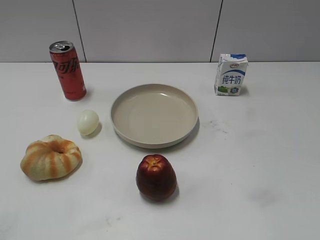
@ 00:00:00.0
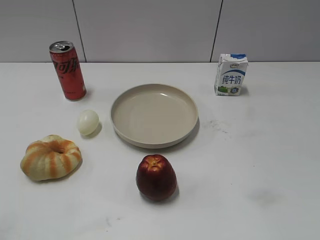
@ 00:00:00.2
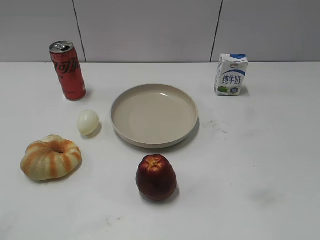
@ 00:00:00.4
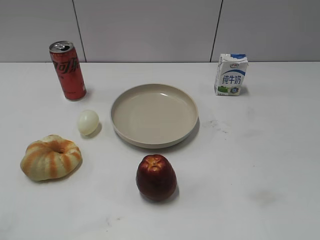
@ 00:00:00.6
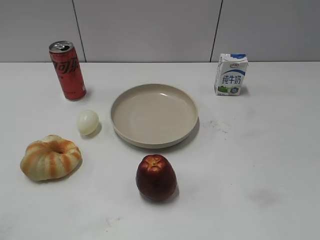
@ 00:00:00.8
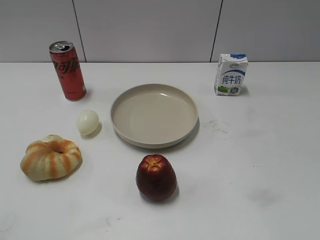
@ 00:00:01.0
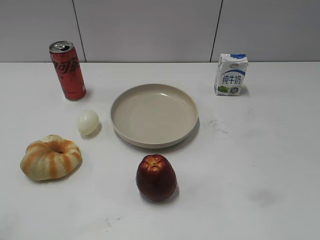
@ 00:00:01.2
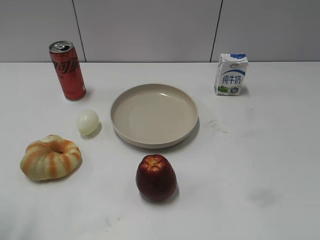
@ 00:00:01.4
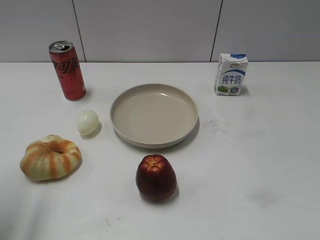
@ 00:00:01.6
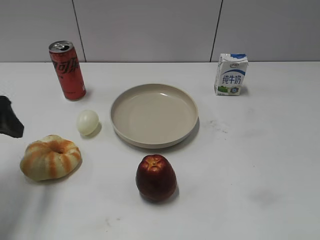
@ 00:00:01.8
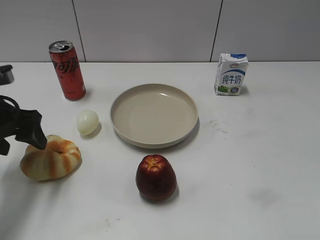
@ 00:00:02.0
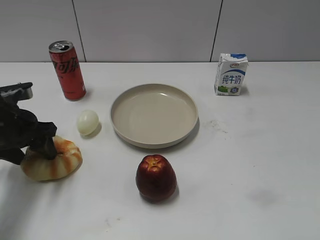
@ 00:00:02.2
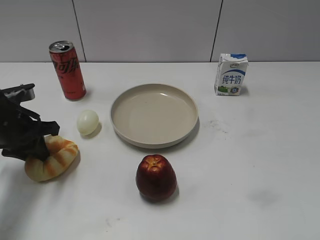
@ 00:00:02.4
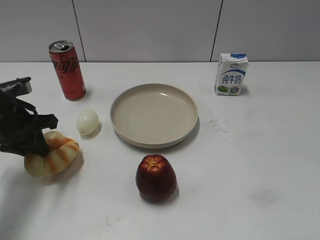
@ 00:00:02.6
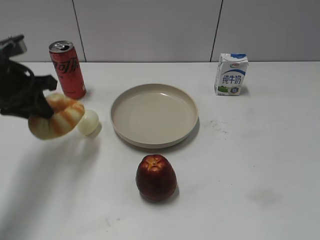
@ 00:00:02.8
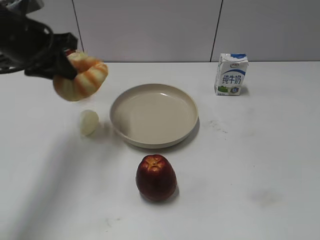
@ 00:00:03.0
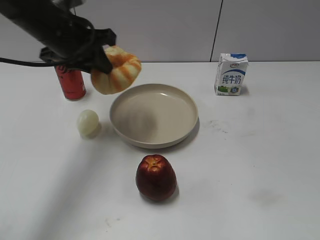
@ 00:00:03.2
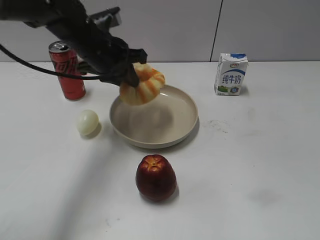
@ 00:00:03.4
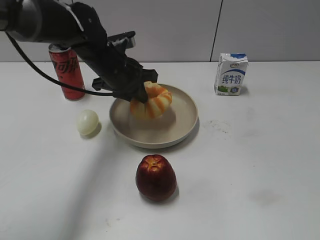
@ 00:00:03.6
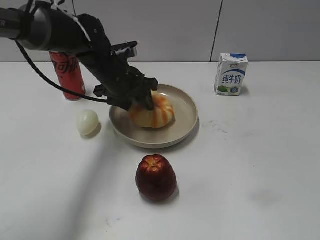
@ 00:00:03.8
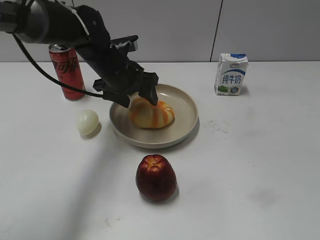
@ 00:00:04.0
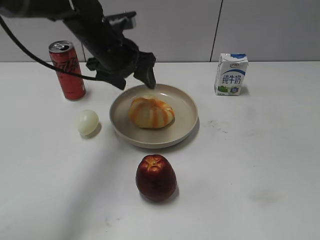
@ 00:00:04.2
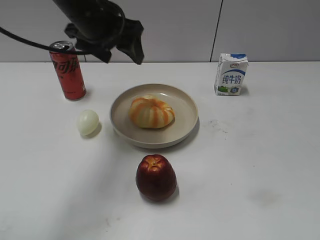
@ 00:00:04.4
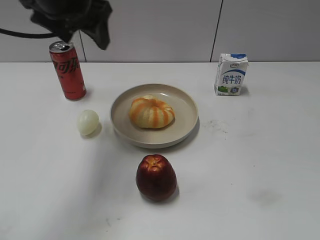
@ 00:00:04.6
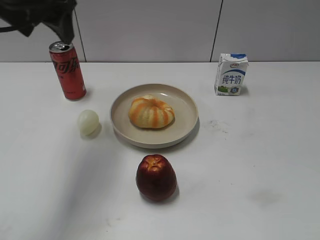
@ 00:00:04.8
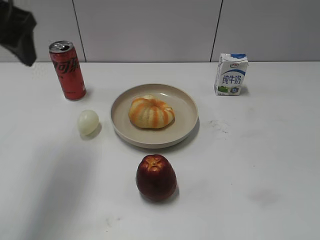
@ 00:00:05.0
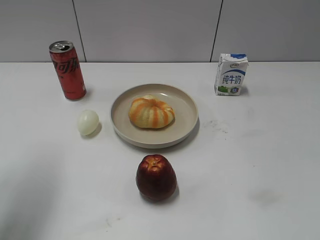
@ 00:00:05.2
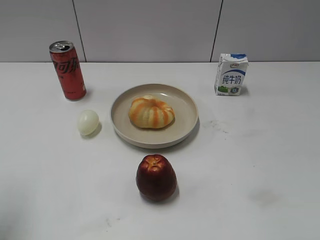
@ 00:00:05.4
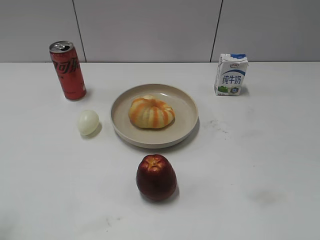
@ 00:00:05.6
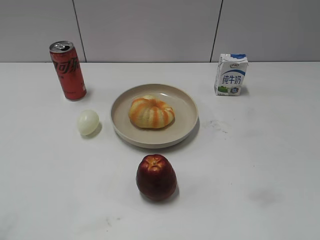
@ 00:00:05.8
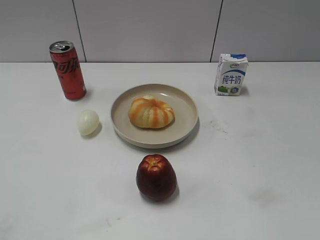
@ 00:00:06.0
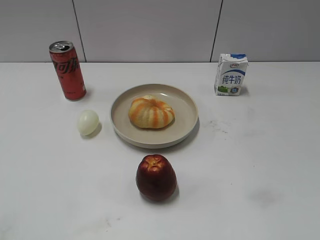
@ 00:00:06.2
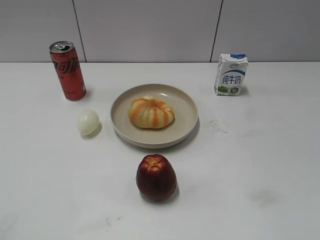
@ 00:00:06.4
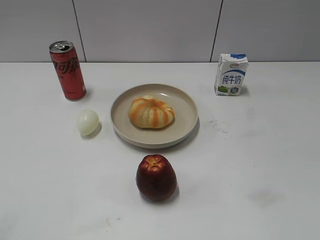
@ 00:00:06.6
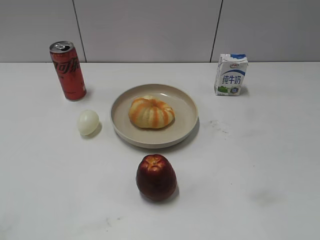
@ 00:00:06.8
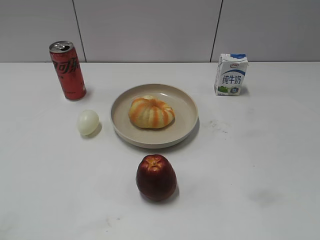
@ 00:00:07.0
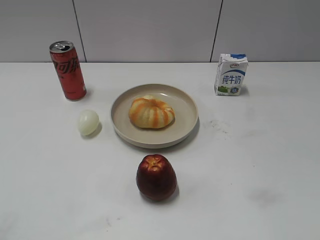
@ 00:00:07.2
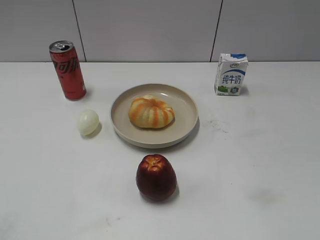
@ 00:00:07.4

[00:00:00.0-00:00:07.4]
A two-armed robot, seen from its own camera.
Step, 00:00:01.0 to 00:00:02.4: Grasp the round bread with left gripper.
Step, 00:00:02.6 to 00:00:04.2: Place the round bread on the plate with left gripper.
00:00:01.4 to 00:00:03.0: The left gripper goes some 20 cm forward and to the right, and closes its fingers.
00:00:03.0 to 00:00:04.4: The left gripper is displaced upward by some 10 cm, and opens its fingers.
00:00:04.4 to 00:00:06.0: The left gripper is displaced backward and to the left by some 35 cm.

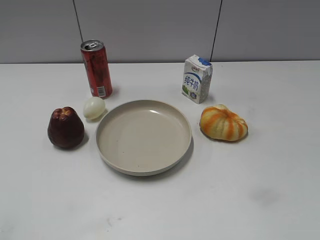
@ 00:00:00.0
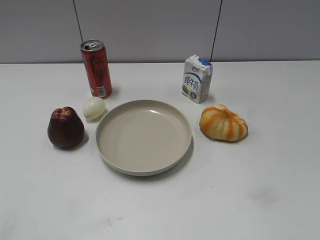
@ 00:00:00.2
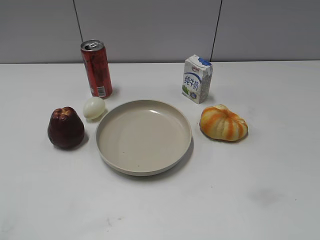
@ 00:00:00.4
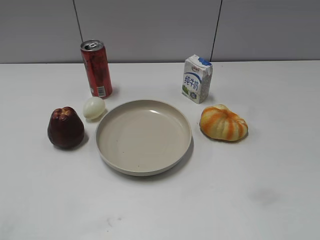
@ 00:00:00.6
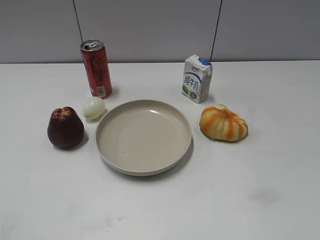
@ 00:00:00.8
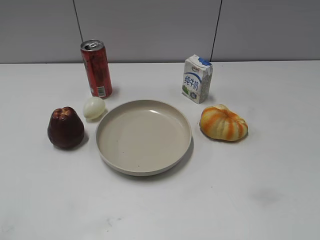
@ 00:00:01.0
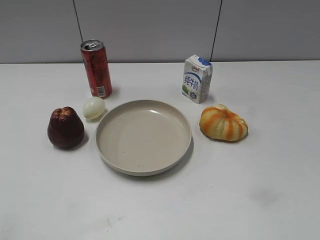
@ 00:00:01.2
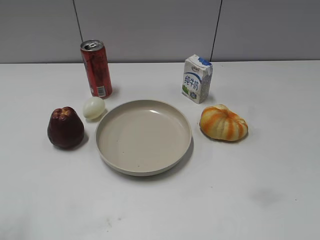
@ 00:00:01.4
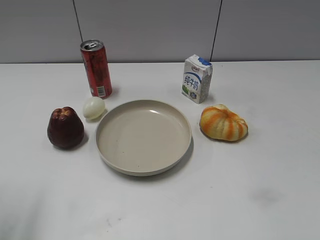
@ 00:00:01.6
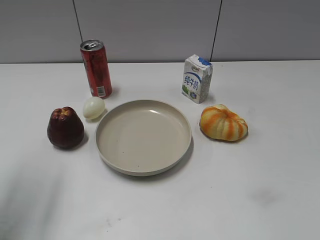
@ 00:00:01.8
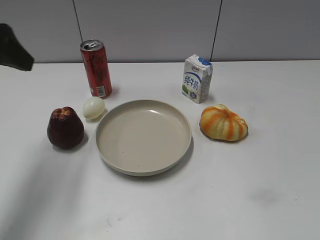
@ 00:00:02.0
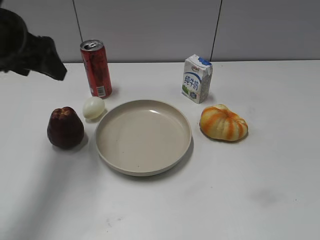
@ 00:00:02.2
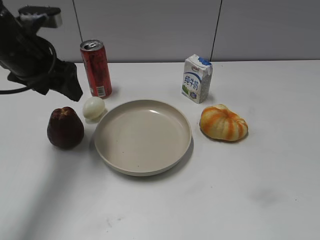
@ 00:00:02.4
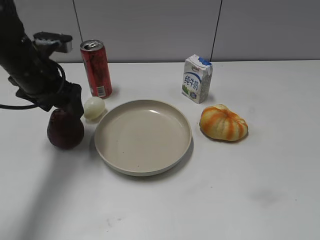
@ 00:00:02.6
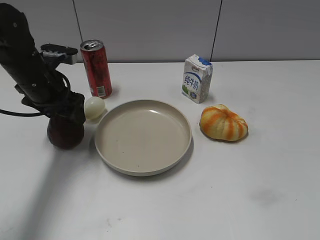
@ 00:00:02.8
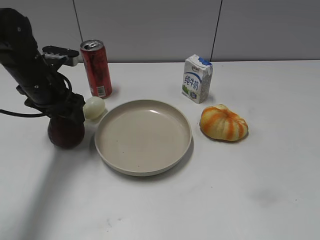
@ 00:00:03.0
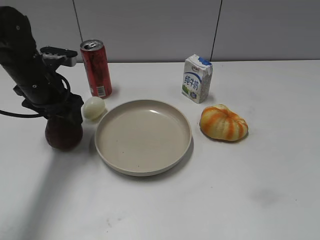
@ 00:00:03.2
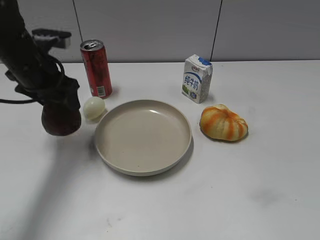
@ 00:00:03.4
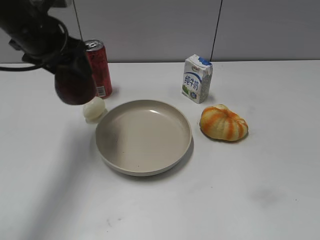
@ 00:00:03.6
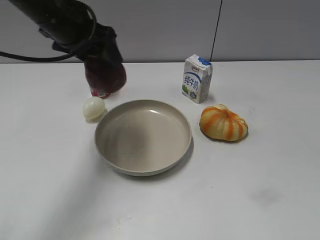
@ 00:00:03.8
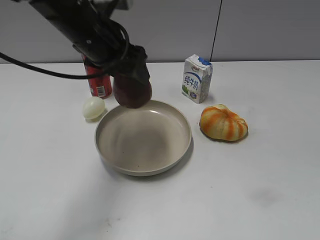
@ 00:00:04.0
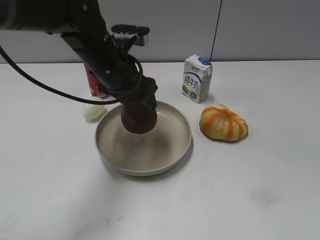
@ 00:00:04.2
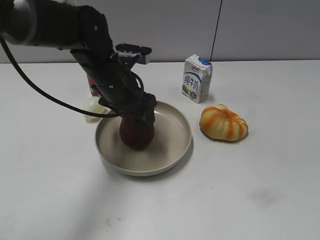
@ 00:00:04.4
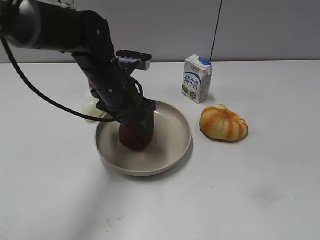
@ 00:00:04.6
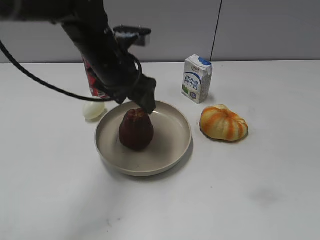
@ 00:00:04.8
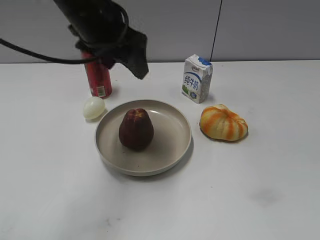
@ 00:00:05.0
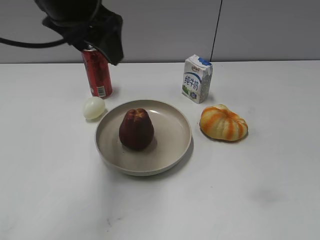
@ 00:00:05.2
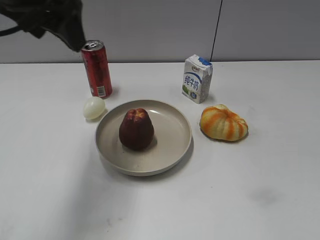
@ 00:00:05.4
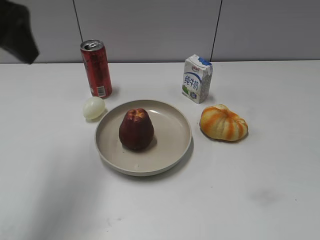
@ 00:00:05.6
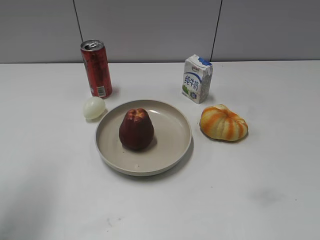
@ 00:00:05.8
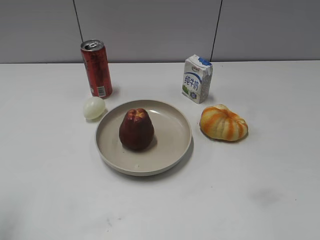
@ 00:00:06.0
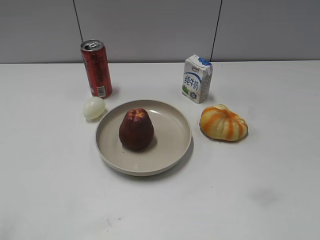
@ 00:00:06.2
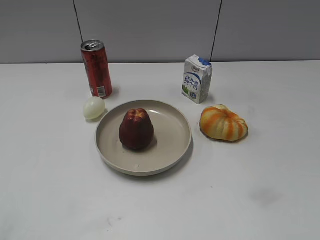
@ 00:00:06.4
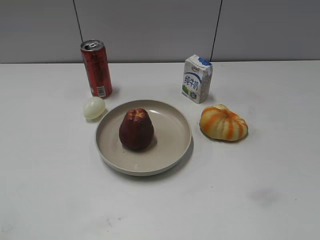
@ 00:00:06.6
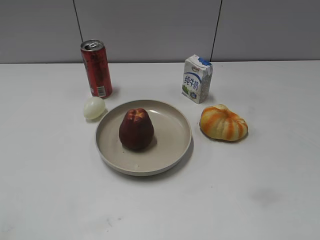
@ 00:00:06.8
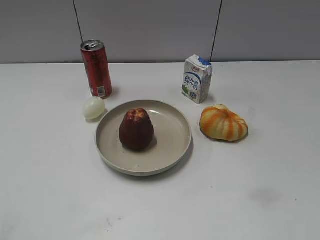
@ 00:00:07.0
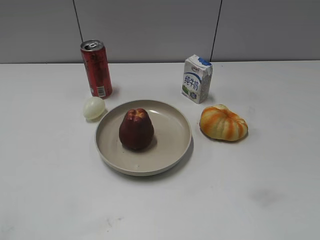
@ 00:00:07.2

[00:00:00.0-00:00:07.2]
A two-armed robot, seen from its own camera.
Step, 00:00:00.8 to 00:00:03.0: Grasp the apple with left gripper.
Step, 00:00:03.2 to 00:00:04.8: Place the apple on the plate with left gripper.
00:00:01.4 to 00:00:02.8: The left gripper moves forward, downward and to the right, about 30 cm, and opens up.
00:00:02.8 to 00:00:04.4: The left gripper goes about 15 cm to the right, and closes its fingers.
00:00:04.4 to 00:00:05.8: The left gripper shifts approximately 30 cm to the left, upward and backward, and opens and closes again.
00:00:05.8 to 00:00:07.2: The left gripper shifts approximately 20 cm backward, and closes its fingers.
